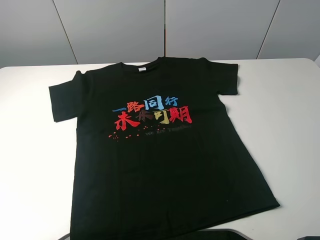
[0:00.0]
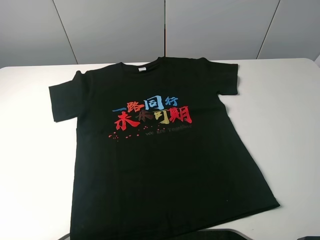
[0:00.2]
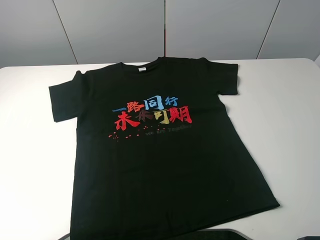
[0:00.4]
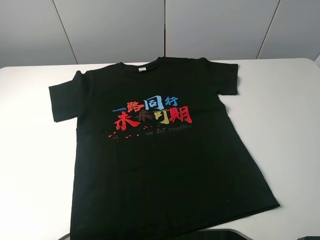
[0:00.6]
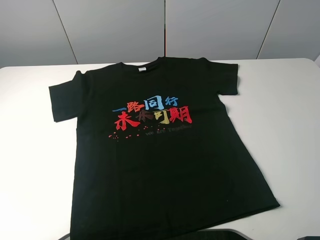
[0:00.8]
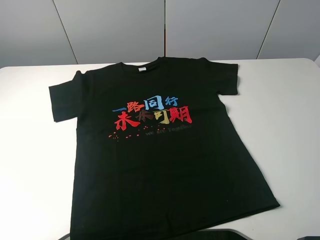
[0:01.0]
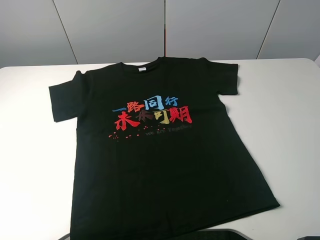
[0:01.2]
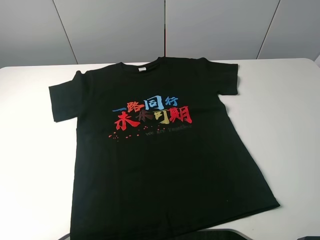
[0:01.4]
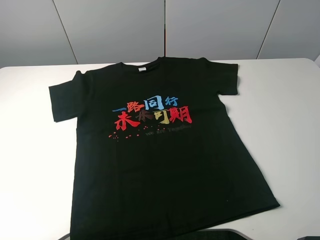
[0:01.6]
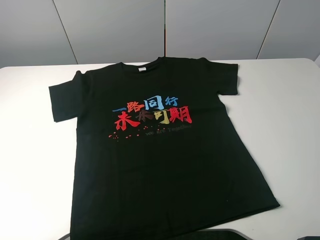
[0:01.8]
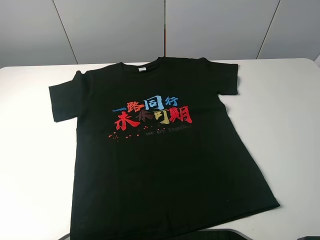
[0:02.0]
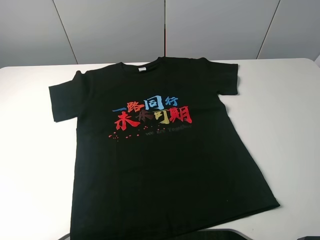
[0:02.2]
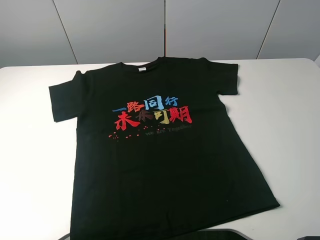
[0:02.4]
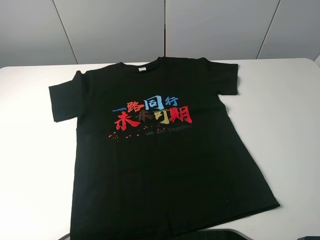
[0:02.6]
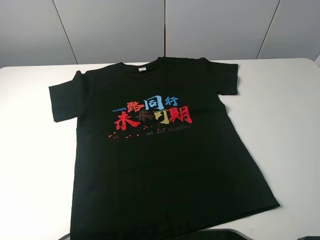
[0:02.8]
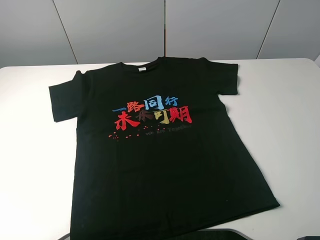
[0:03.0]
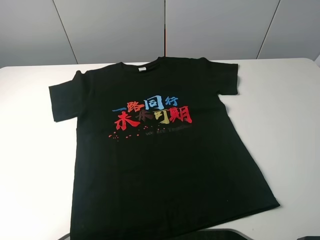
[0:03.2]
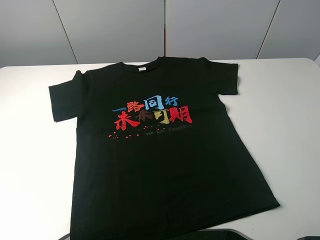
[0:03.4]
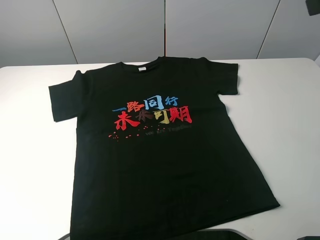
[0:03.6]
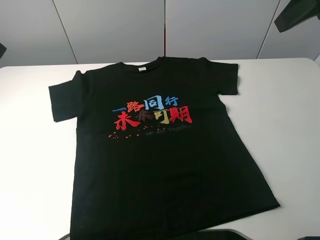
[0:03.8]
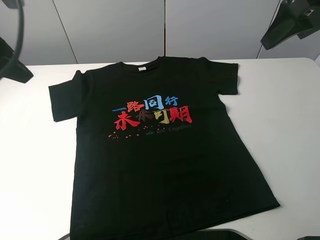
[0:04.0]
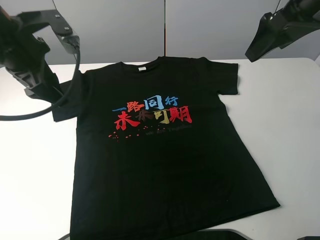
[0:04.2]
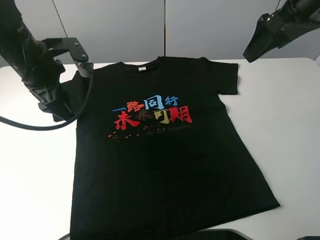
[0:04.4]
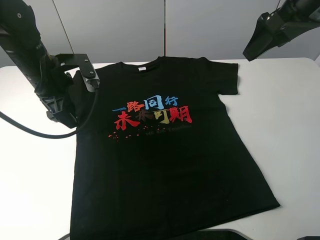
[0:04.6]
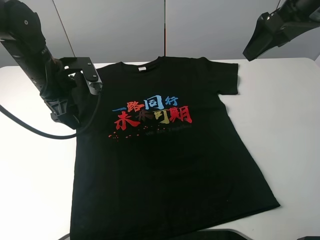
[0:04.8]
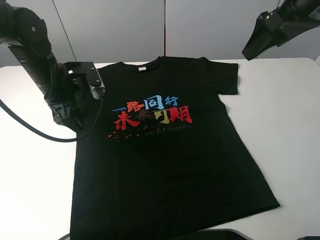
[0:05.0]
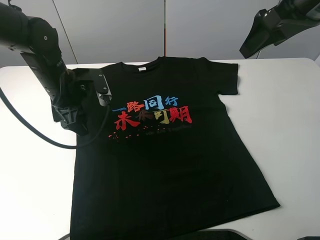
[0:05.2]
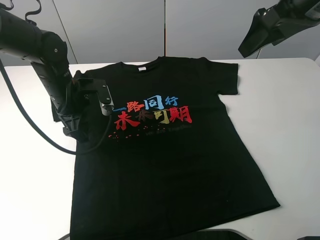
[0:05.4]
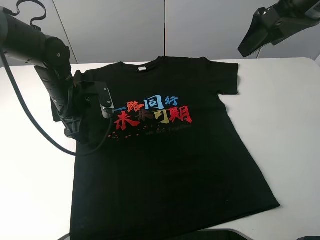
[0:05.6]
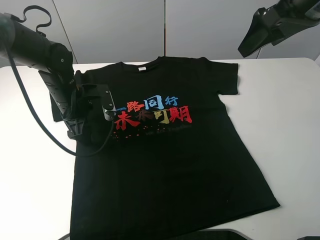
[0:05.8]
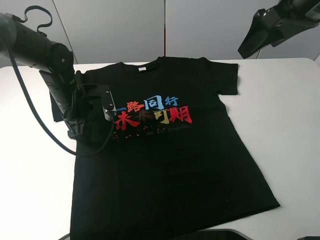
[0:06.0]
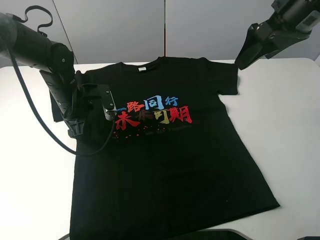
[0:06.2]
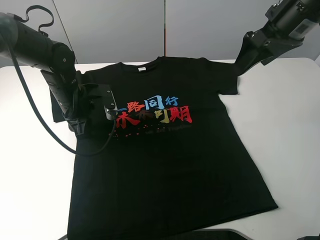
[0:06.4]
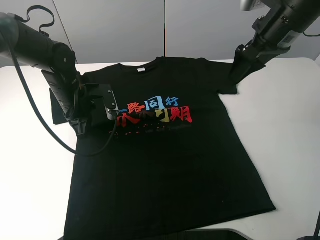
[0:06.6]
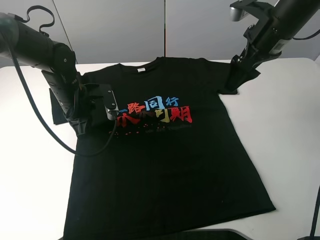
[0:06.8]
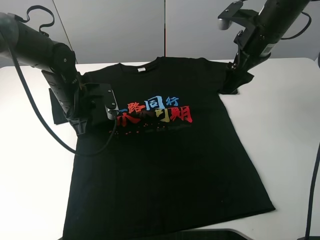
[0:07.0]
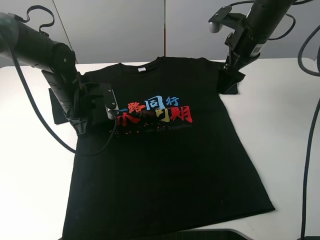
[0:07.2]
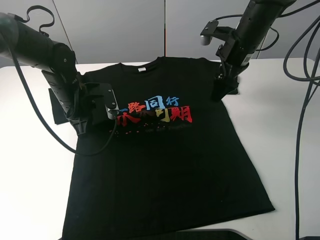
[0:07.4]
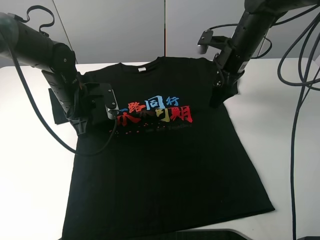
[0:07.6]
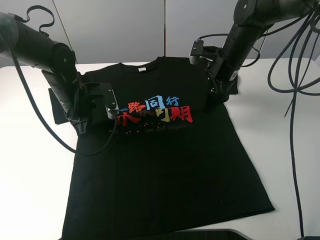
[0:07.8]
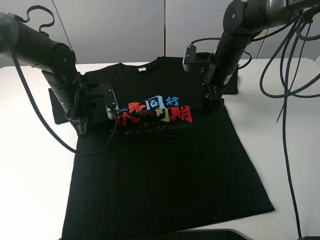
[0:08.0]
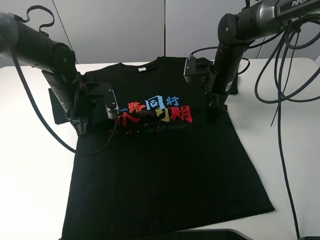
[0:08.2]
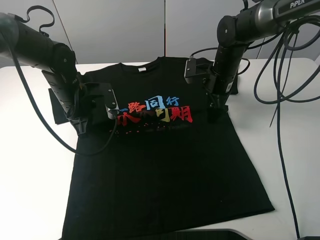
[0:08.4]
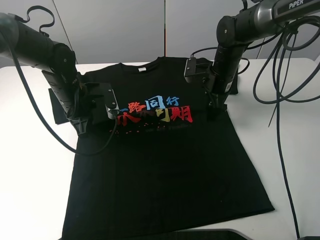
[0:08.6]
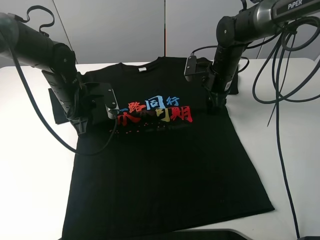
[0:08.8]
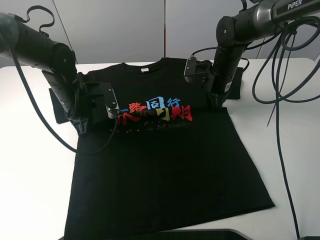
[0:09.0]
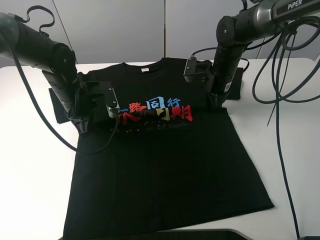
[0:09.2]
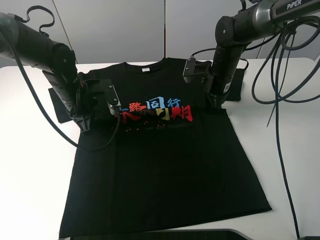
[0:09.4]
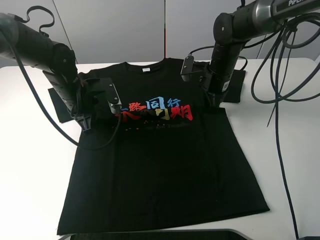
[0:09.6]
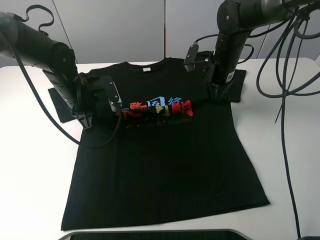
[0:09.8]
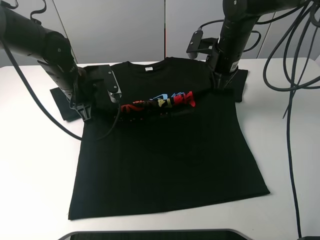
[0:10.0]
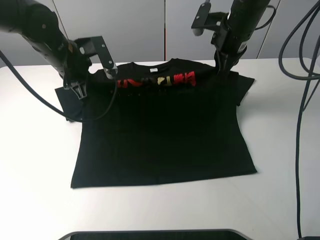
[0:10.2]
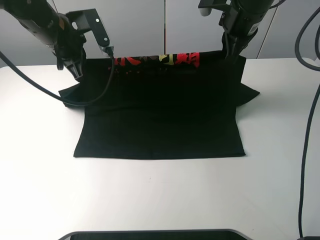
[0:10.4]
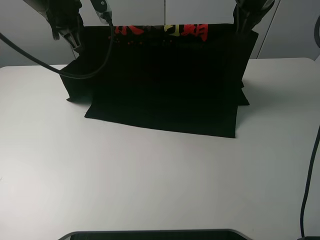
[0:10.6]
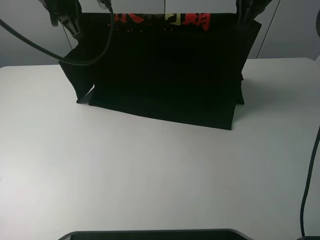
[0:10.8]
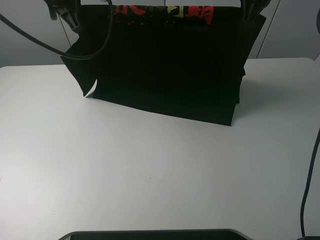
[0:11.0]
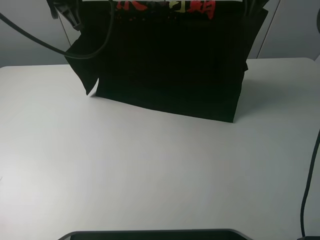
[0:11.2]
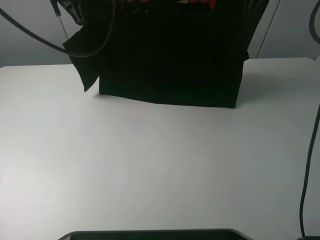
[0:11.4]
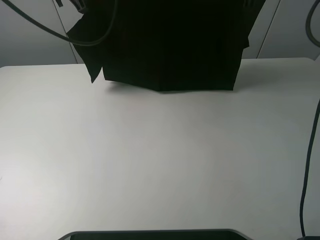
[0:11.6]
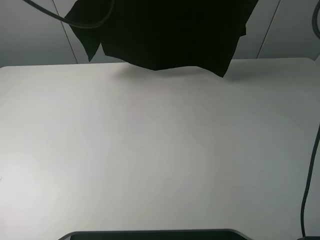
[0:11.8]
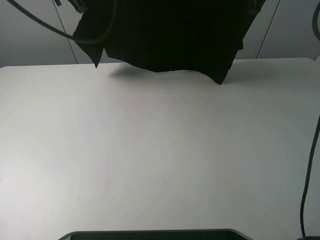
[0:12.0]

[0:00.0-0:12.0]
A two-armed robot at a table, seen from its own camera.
Task of the whole recording: fold the clothes on the table.
Step, 0:00.0 to 0:09.0: Lift the black T-shirt with the left gripper.
0:00.0 to 0:01.6: Both grippers stay about where they are.
0:03.0 to 0:04.4: The right gripper heads forward, covering approximately 25 cm. Meanwhile the left gripper moves forward, to the right and downward, about 35 cm.
0:04.4 to 0:06.0: The left gripper heads downward, covering about 10 cm.
0:06.0 to 0:07.6: The left gripper closes up; the right gripper goes some 15 cm downward and forward.
0:07.6 to 0:09.0: The right gripper goes roughly 5 cm downward, and closes its fingers.
0:09.0 to 0:10.4: The two grippers go some 15 cm upward.
0:10.4 to 0:12.0: The grippers both shift upward by about 5 cm.

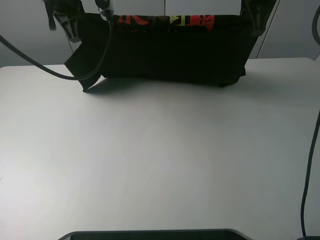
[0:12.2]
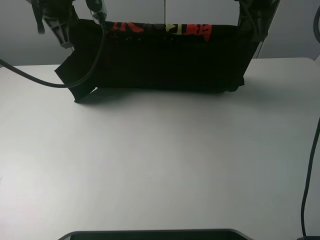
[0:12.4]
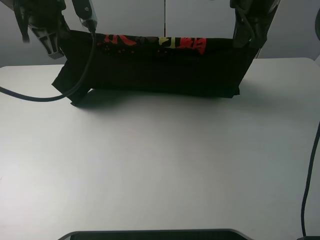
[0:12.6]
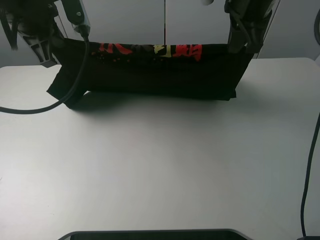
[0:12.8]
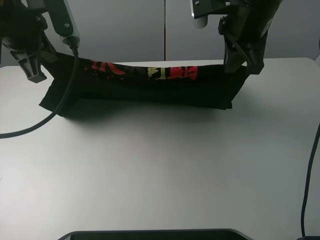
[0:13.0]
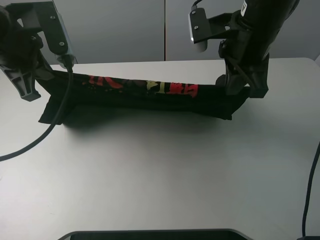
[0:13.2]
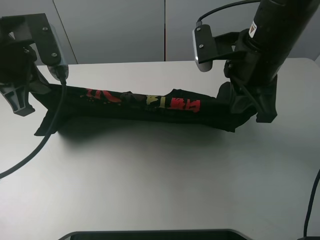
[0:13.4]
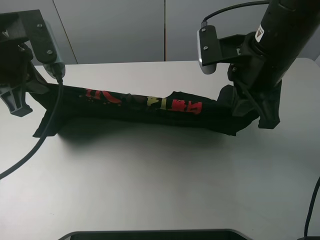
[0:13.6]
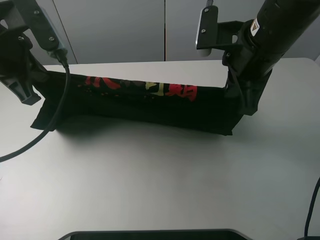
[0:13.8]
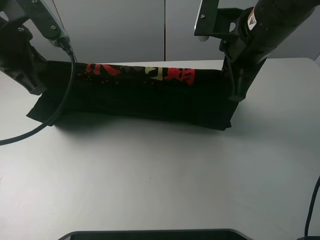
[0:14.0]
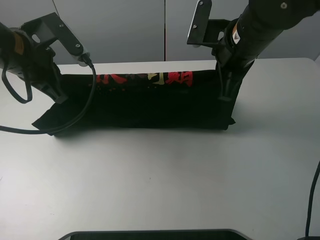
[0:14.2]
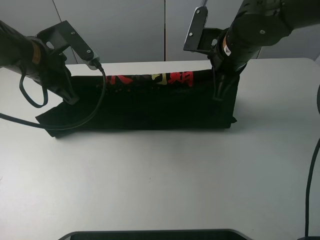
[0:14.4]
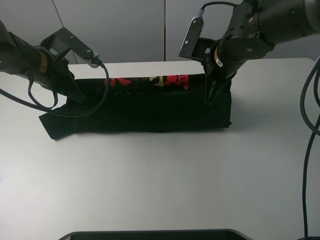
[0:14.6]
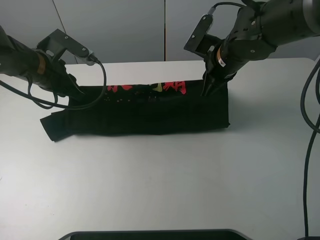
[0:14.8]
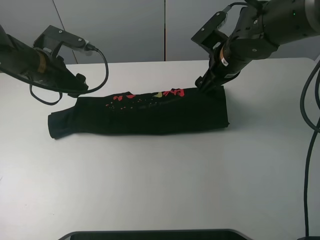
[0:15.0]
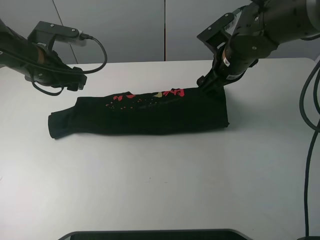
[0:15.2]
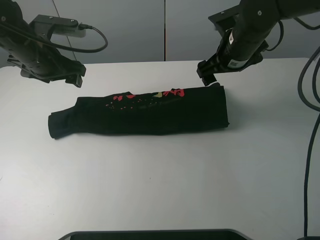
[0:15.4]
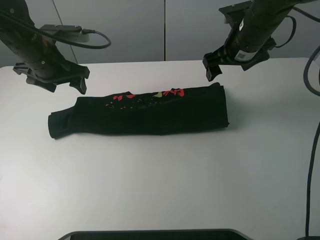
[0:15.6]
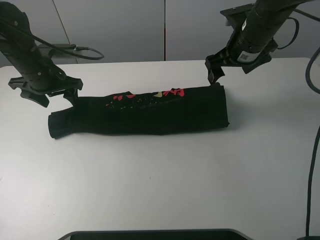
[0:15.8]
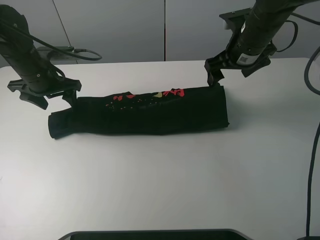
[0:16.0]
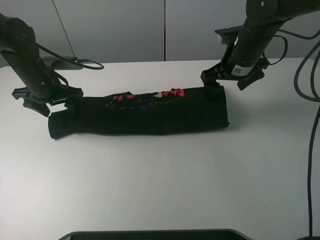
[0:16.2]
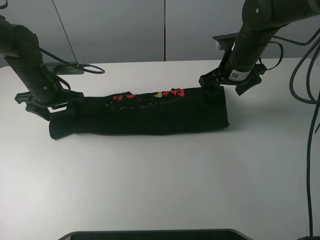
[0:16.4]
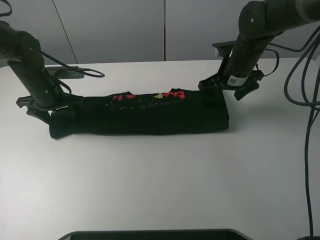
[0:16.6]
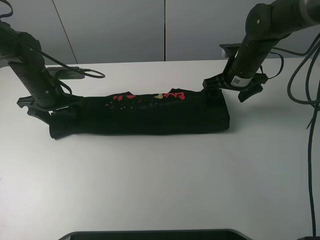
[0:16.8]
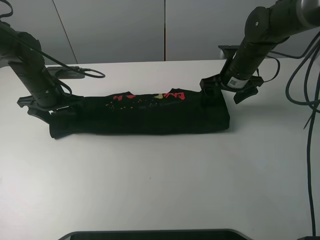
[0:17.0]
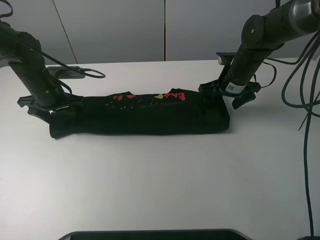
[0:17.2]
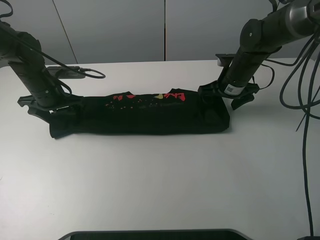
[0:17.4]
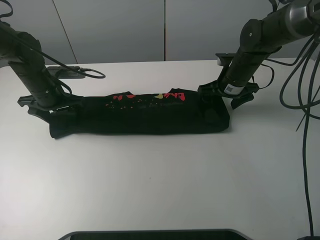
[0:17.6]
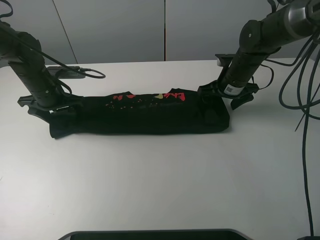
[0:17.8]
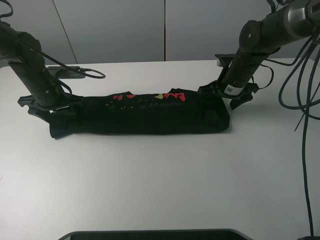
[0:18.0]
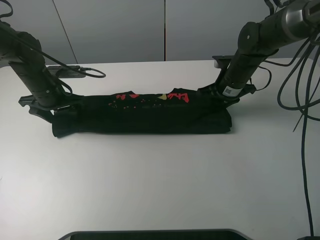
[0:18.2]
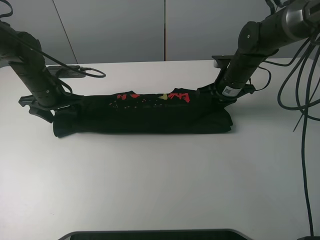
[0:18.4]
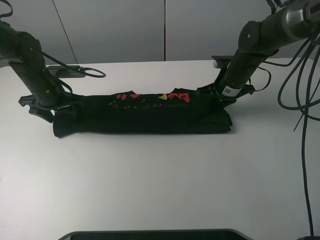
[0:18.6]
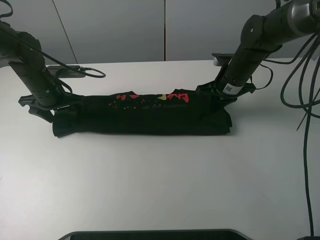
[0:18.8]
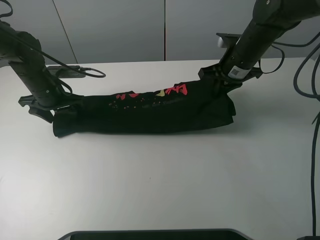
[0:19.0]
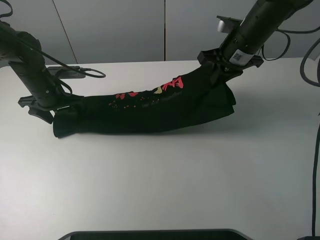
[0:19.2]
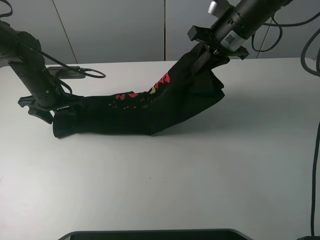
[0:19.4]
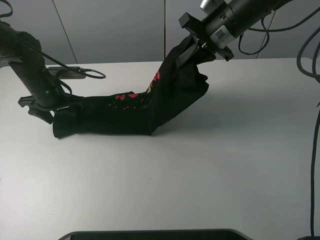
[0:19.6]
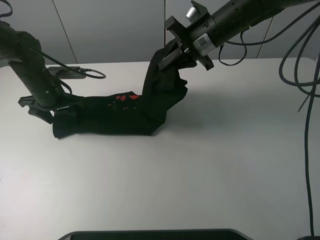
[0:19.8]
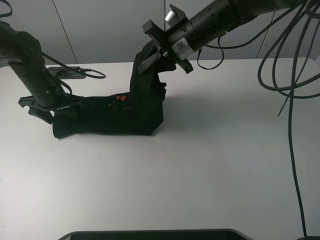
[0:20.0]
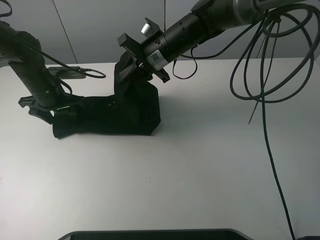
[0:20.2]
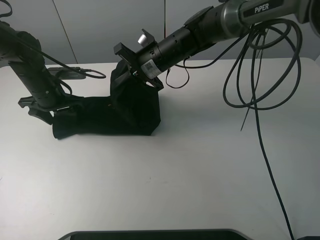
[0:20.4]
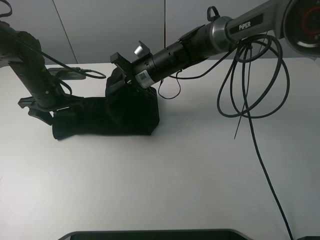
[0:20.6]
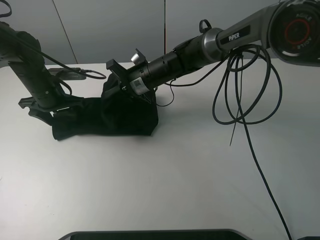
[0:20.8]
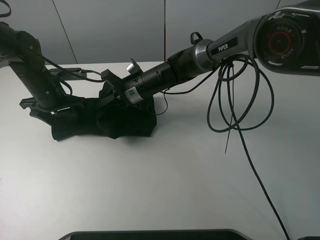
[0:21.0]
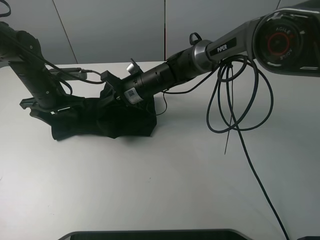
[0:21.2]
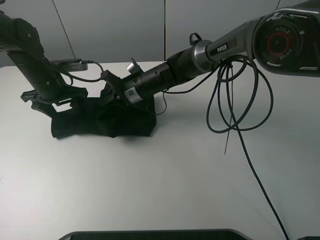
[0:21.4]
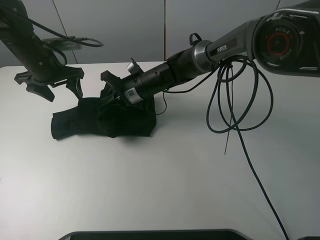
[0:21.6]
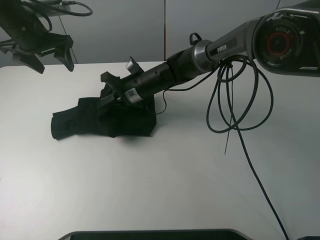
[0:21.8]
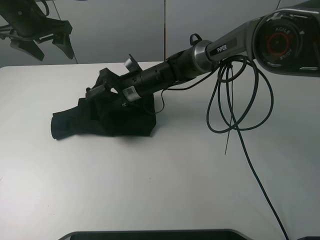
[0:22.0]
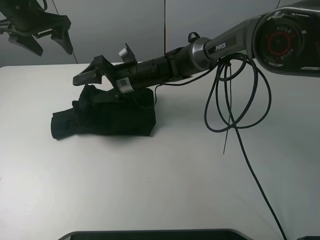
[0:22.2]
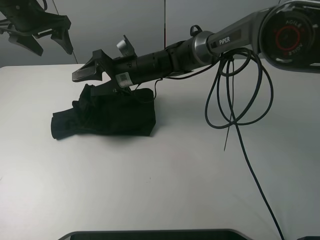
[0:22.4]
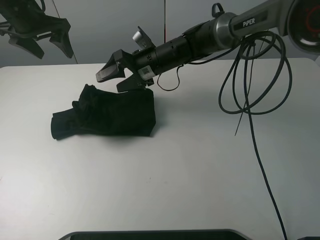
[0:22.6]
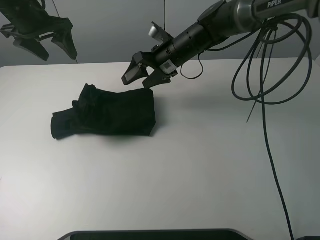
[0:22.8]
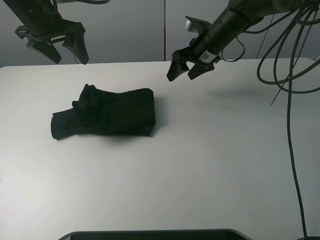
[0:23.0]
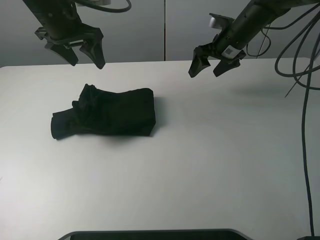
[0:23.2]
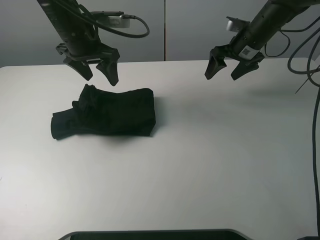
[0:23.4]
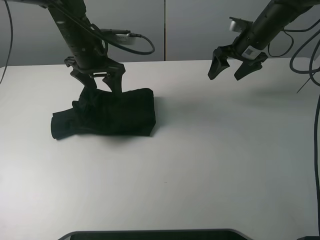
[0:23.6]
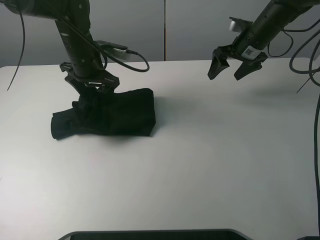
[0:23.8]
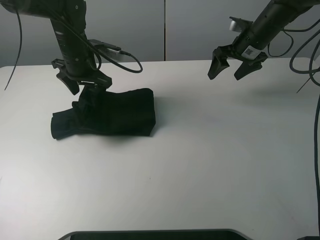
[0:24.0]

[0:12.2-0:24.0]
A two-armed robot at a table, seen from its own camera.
Task of the whole recording: fold the clothes on the table.
Step, 0:12.2 to 0:15.0: Fold the black T-shirt downward with the left gripper.
Step, 0:15.4 to 0:18.8: Grasp the black T-shirt with the right gripper.
Step, 0:19.0 to 0:22.4: Fold the black T-shirt from right to left with right gripper.
0:12.2 to 0:13.6: The right gripper moves backward, some 15 cm. Meanwhile the left gripper is displaced backward and to the left by about 15 cm.
0:13.6 to 0:15.2: Both grippers travel together forward and downward, about 15 cm. The left gripper opens; the right gripper opens.
0:15.2 to 0:16.6: The right gripper moves approximately 5 cm, while the left gripper heads downward, covering some 10 cm.
0:16.6 to 0:18.2: The right gripper closes.
0:18.2 to 0:19.6: The right gripper travels upward by roughly 15 cm.
0:19.6 to 0:21.0: The right gripper is displaced to the left and downward by roughly 20 cm.
0:21.0 to 0:22.6: The right gripper is displaced upward by approximately 5 cm, and opens. The left gripper moves upward, some 15 cm.
0:22.6 to 0:24.0: The left gripper heads downward and to the right, covering some 15 cm, while the right gripper is displaced to the right by roughly 20 cm.
